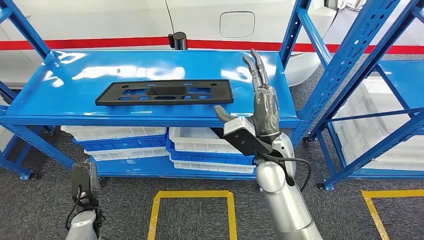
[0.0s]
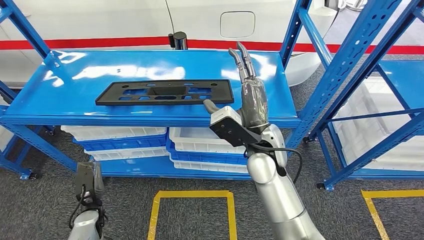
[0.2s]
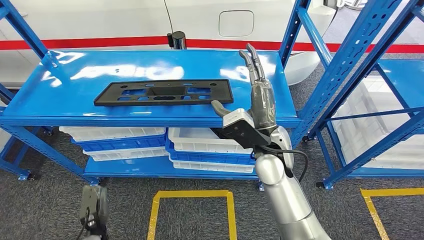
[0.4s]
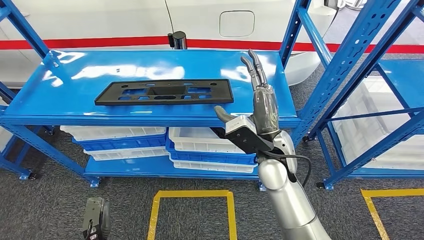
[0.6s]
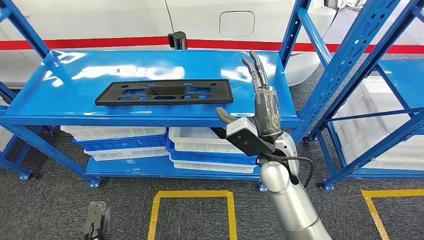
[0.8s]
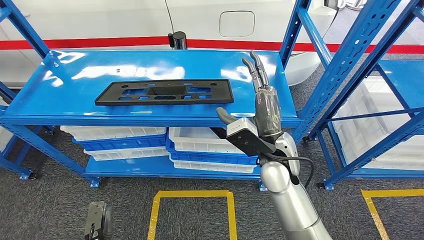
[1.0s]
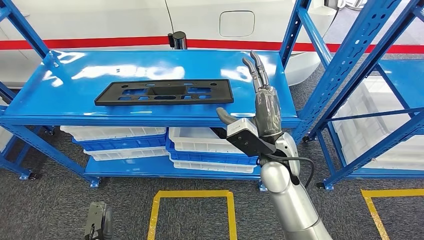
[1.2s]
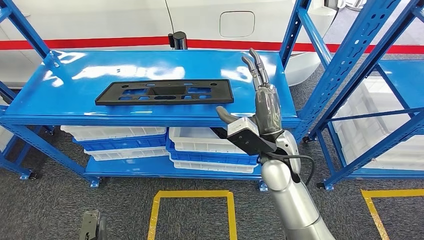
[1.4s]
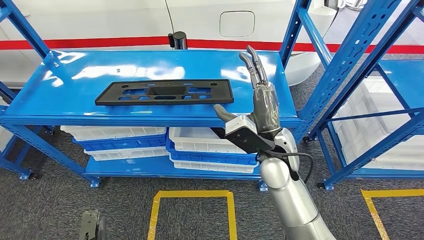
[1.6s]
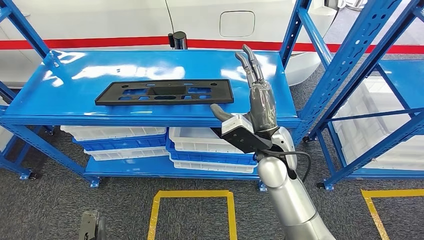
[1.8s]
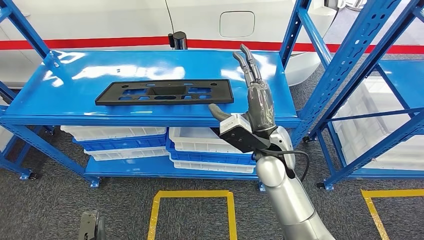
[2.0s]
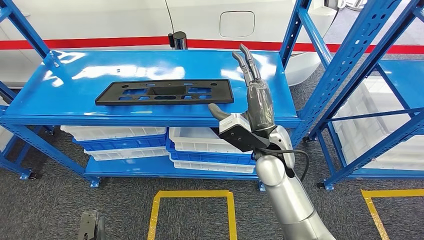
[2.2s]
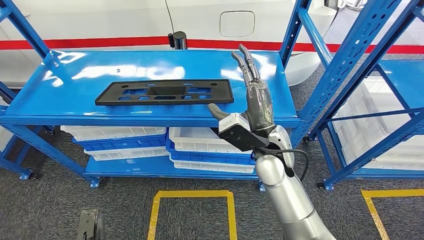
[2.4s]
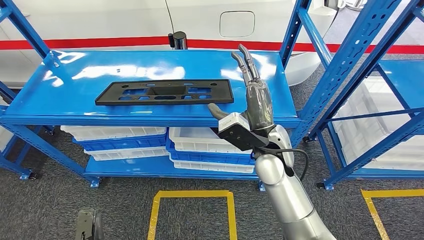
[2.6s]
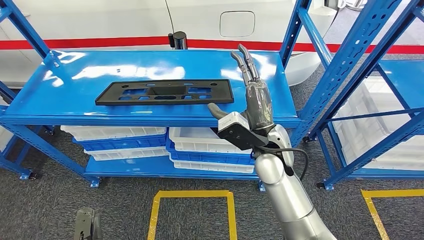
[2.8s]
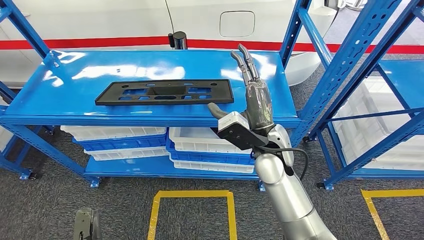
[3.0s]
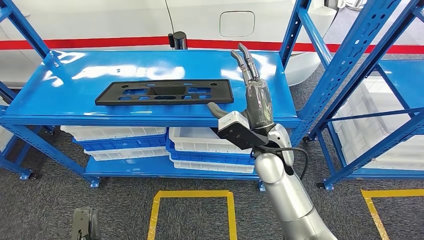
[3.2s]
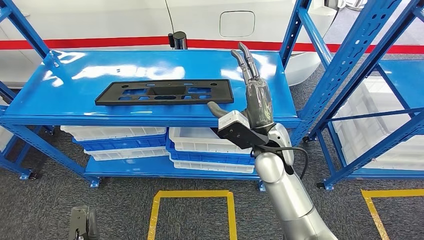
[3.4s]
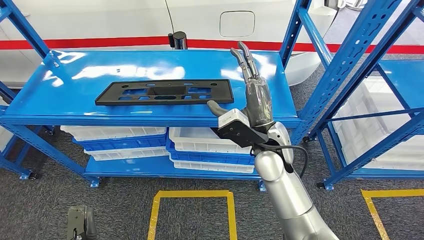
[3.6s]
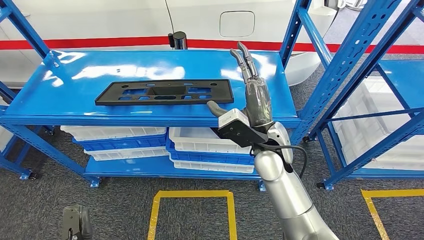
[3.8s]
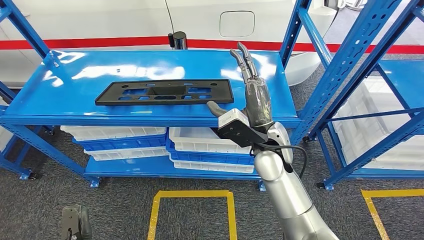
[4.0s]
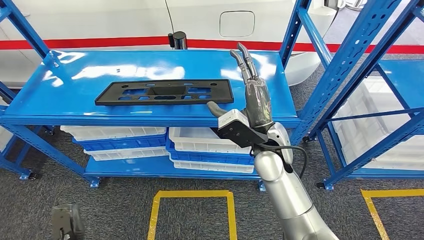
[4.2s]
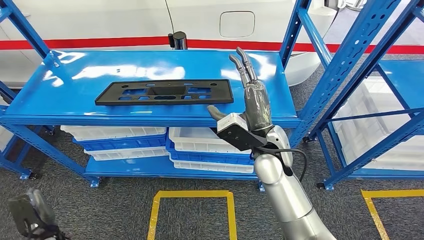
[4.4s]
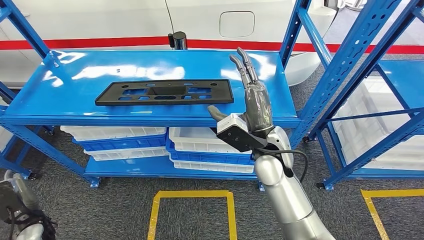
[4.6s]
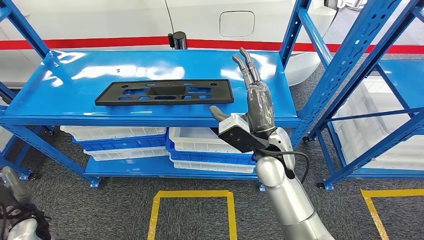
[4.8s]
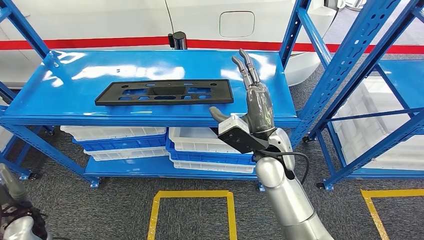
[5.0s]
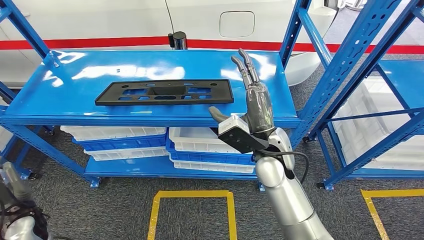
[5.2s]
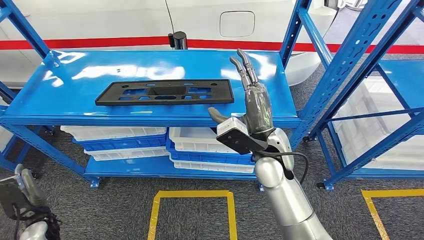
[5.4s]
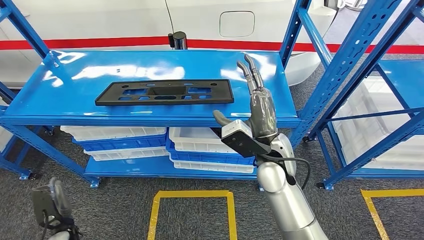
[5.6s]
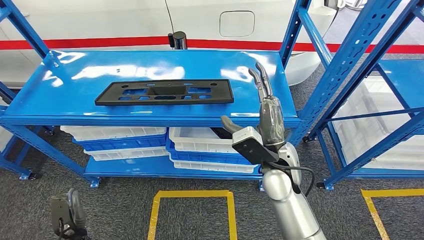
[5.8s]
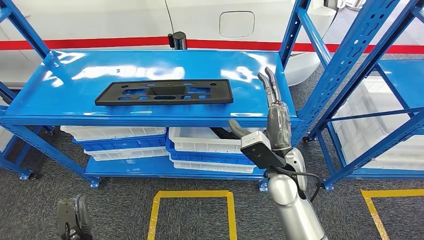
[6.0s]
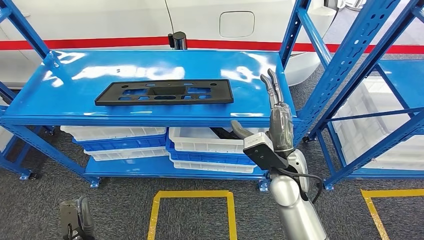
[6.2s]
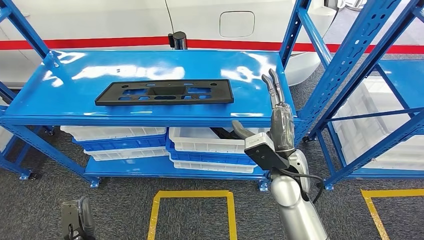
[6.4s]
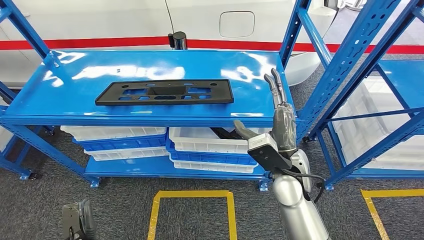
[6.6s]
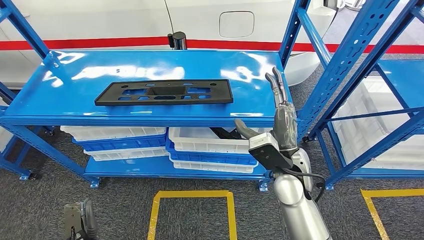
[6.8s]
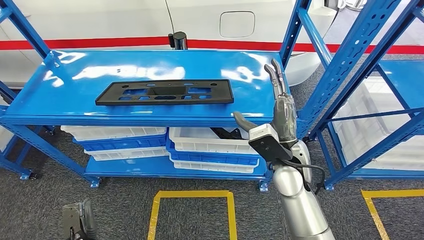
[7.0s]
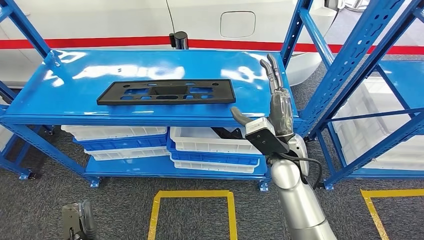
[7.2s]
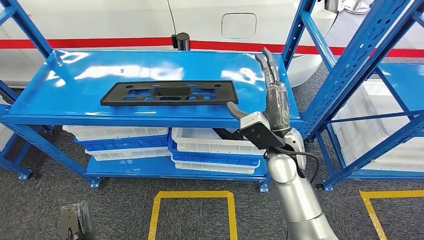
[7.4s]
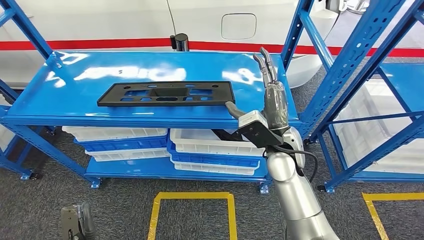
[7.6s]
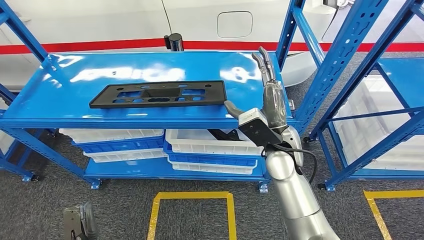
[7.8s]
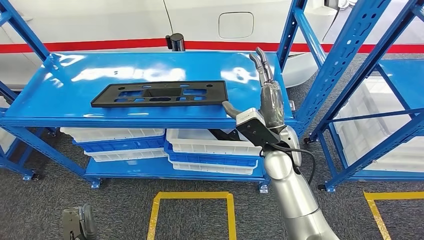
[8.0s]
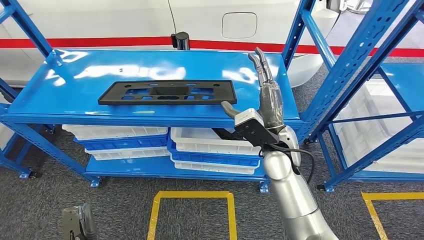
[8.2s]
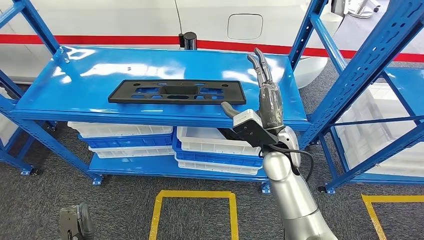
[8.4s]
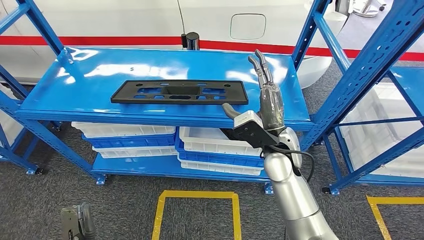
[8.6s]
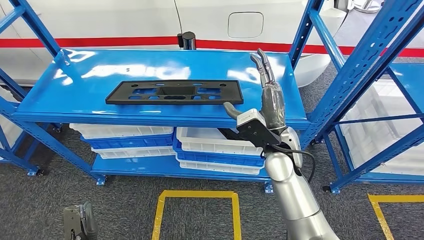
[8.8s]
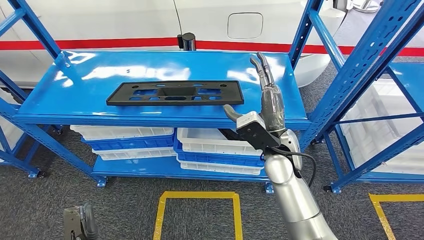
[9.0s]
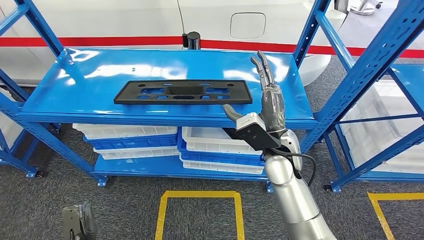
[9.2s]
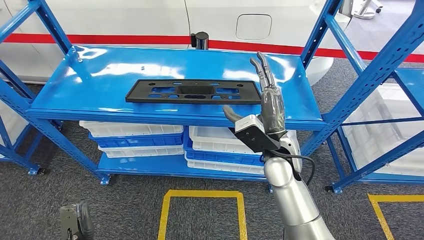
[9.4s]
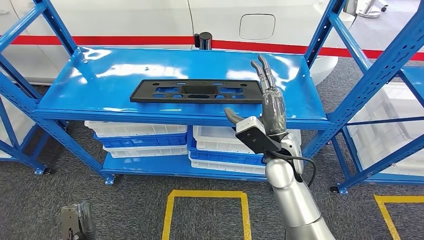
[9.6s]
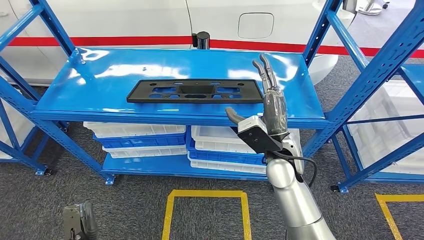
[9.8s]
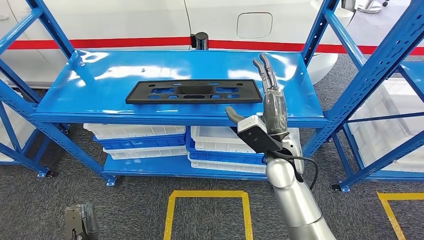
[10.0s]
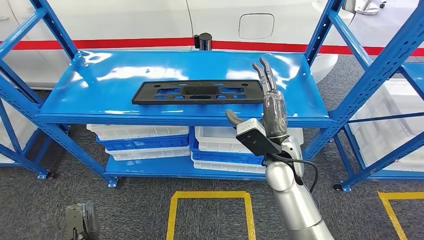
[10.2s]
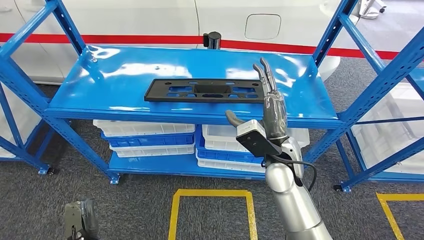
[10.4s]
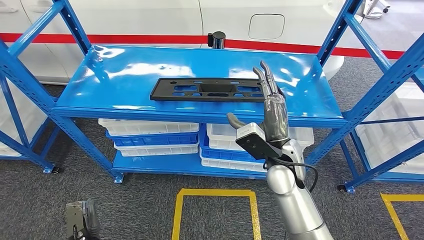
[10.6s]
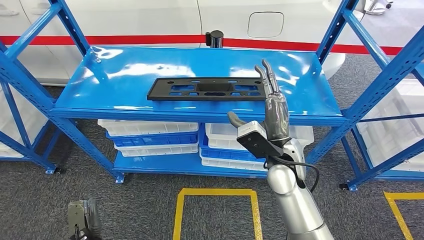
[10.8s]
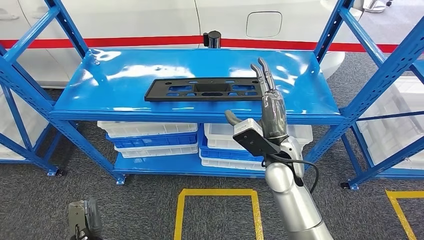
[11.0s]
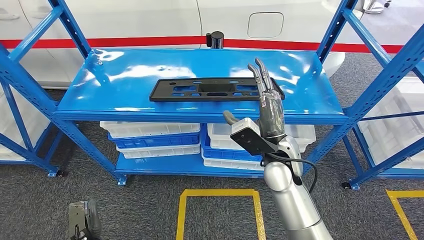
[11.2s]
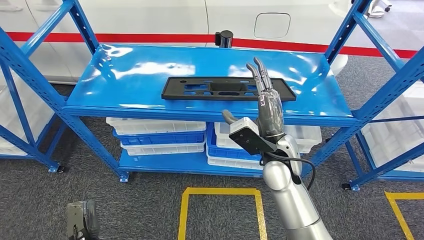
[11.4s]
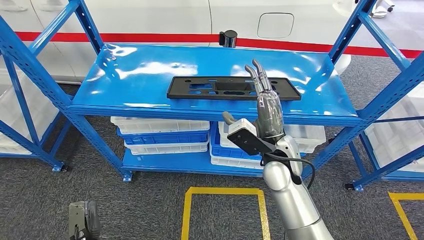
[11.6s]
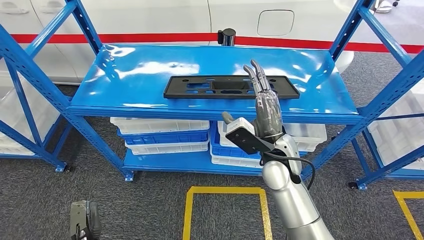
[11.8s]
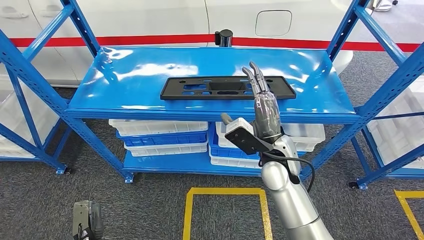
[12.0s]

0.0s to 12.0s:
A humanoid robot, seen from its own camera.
1.6s to 3.0s: The hands make only small movements.
3.0s to 4.4s: The left hand goes approximately 10 cm to the left and forward.
4.4s to 6.0s: The right hand changes place by about 5 cm. The left hand goes roughly 5 cm to the right.

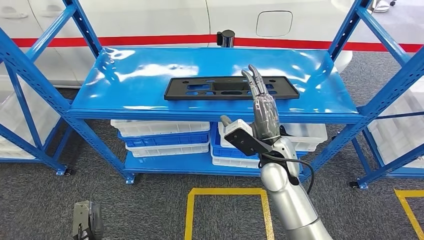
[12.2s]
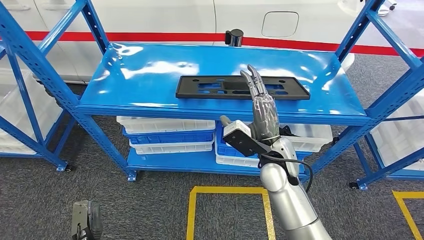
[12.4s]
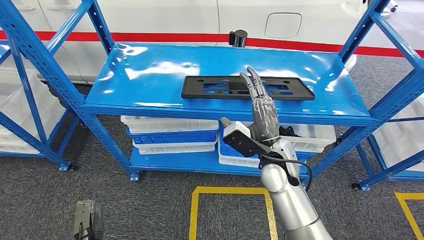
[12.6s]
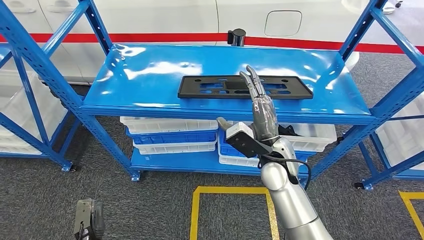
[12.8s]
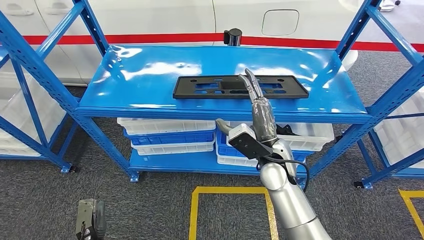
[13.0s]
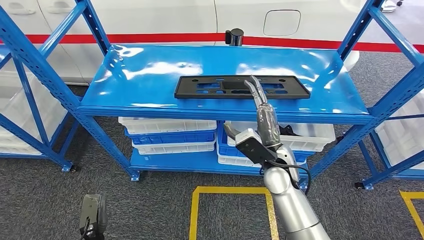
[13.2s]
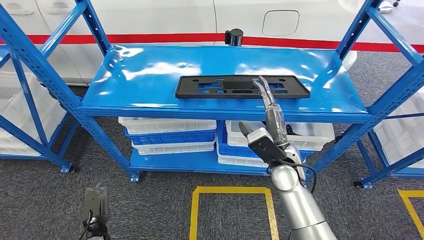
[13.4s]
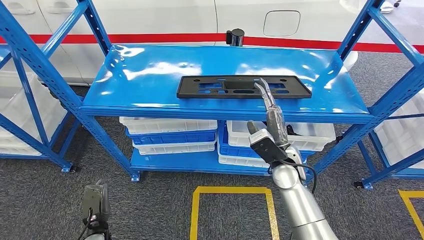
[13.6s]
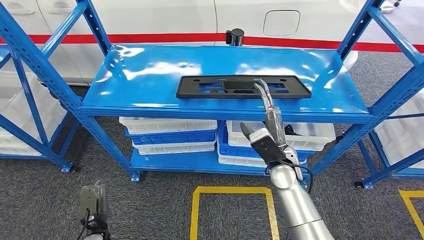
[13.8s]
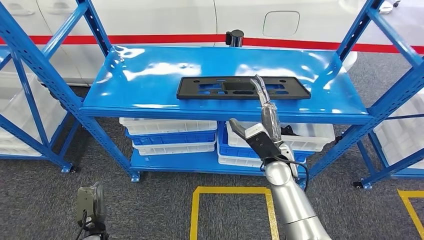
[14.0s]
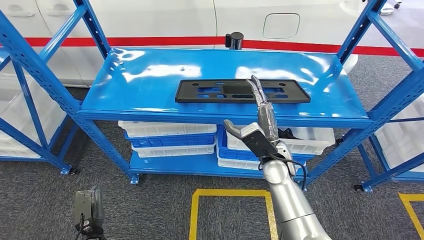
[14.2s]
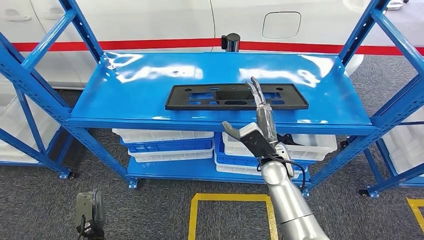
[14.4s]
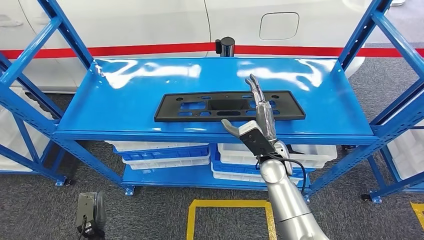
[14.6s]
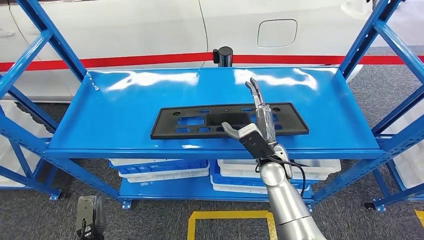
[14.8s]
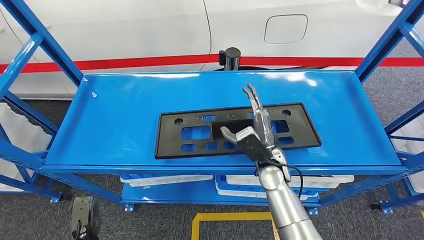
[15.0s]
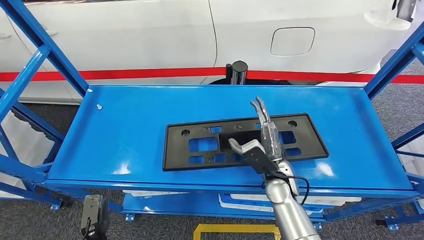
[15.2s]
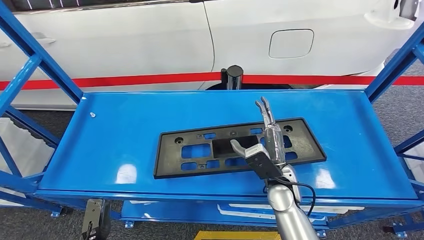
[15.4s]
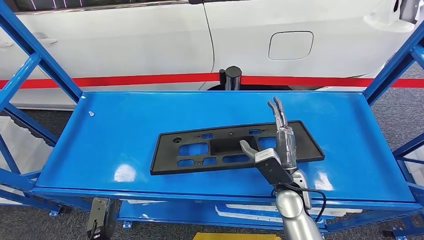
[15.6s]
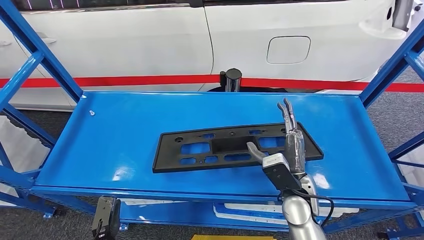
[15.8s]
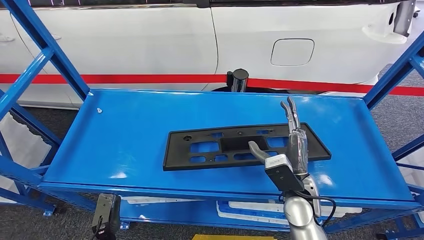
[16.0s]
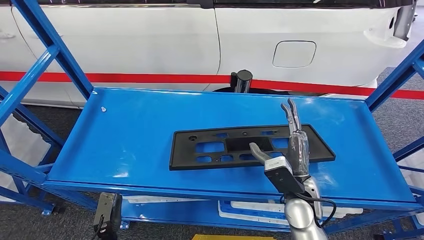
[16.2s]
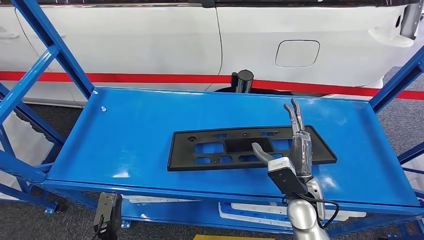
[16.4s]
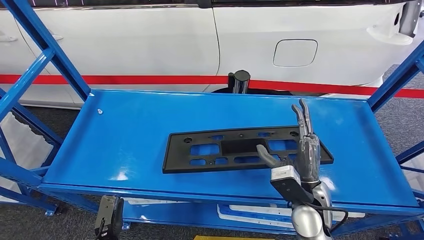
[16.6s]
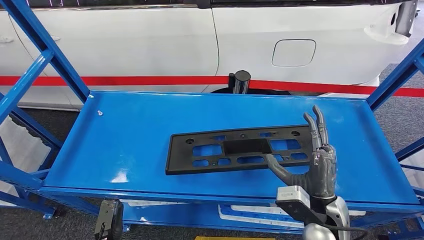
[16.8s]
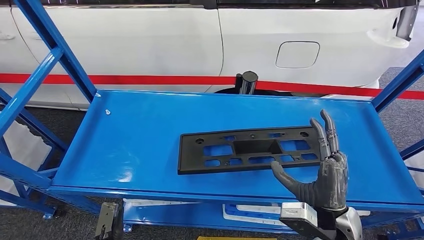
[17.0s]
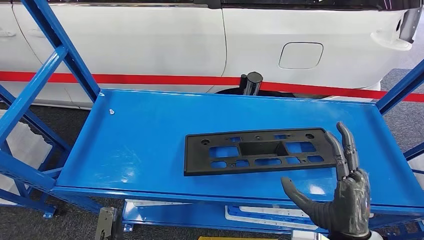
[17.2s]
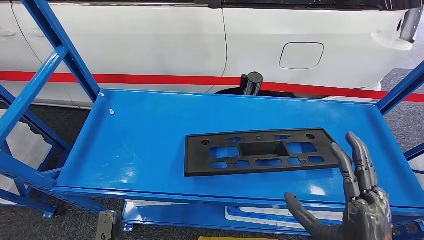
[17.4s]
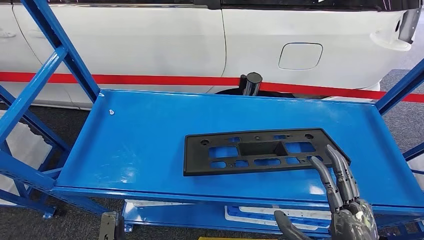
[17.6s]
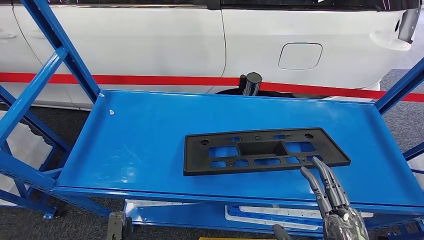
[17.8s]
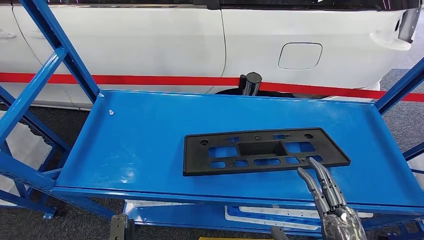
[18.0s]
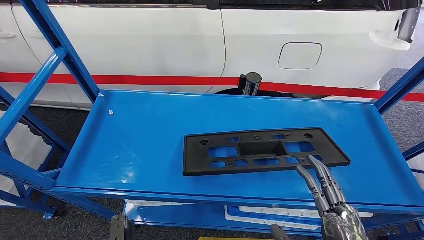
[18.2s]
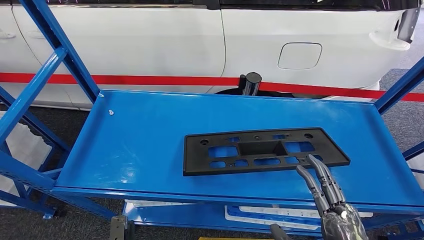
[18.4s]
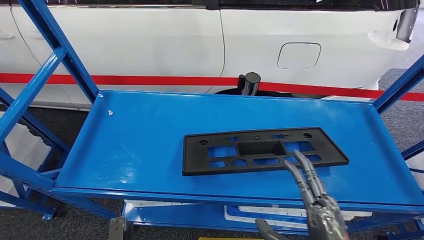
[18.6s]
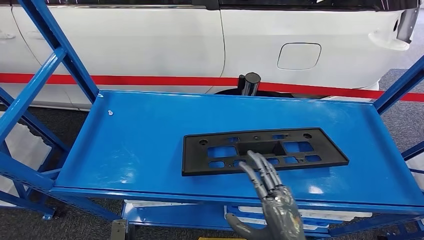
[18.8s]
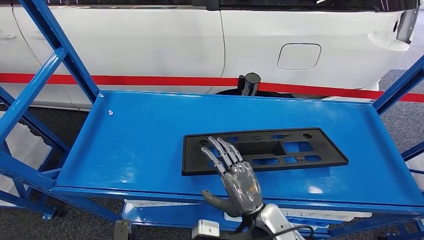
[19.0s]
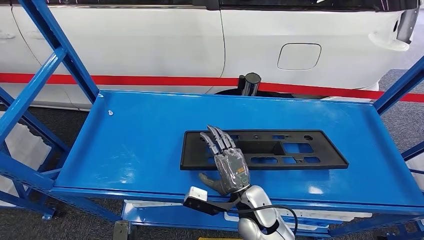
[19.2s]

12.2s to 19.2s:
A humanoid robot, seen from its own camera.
17.8s to 19.2s: The right hand shifts some 25 cm forward, downward and to the left.
